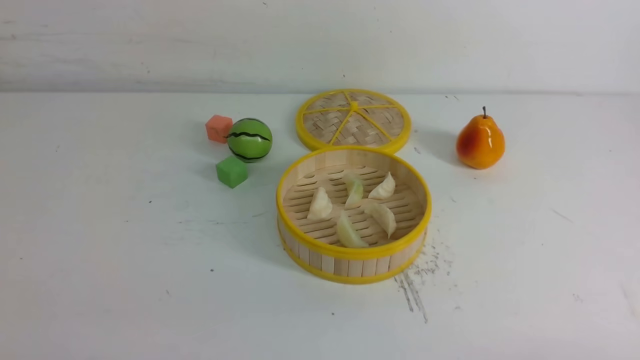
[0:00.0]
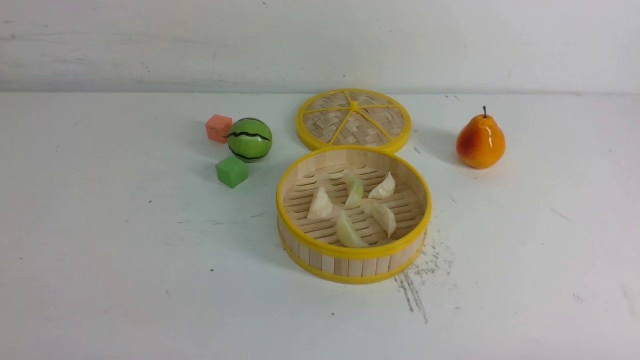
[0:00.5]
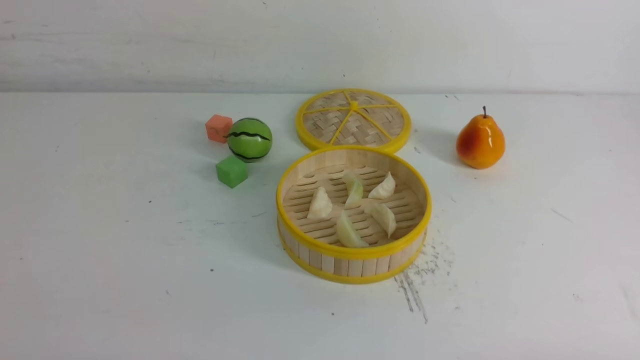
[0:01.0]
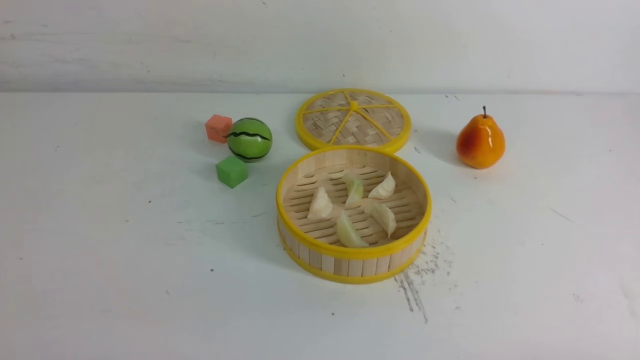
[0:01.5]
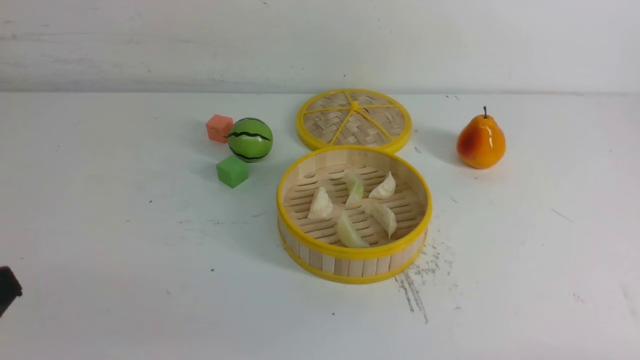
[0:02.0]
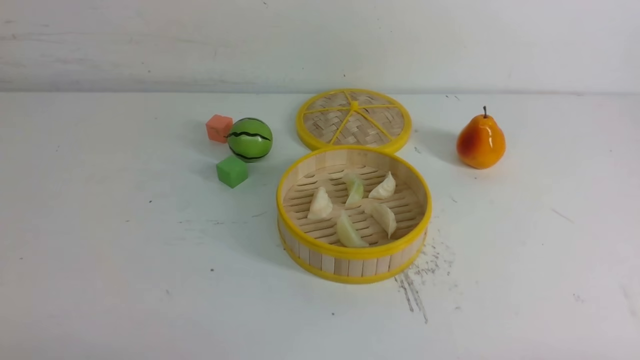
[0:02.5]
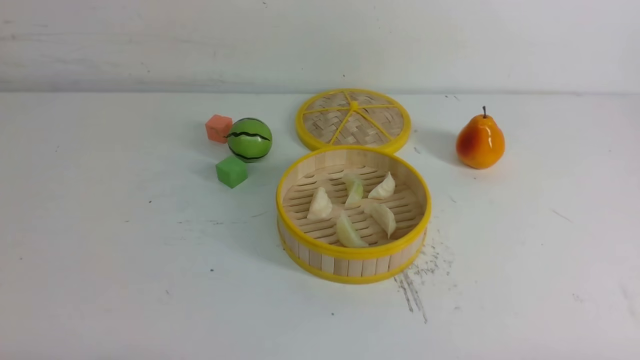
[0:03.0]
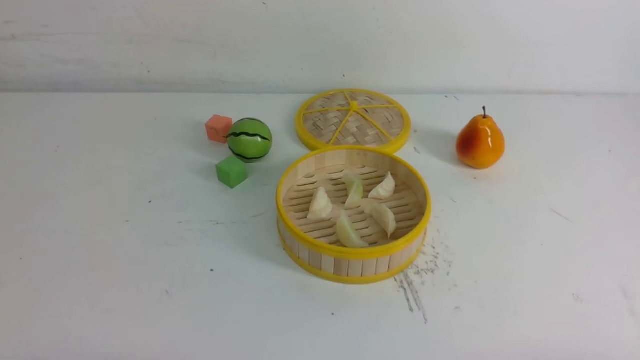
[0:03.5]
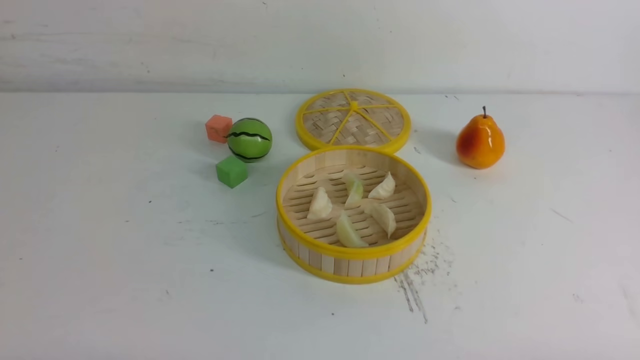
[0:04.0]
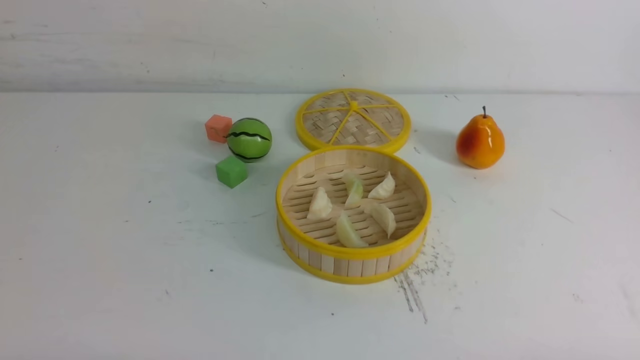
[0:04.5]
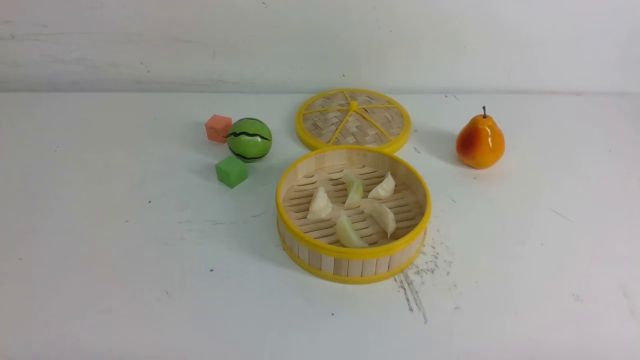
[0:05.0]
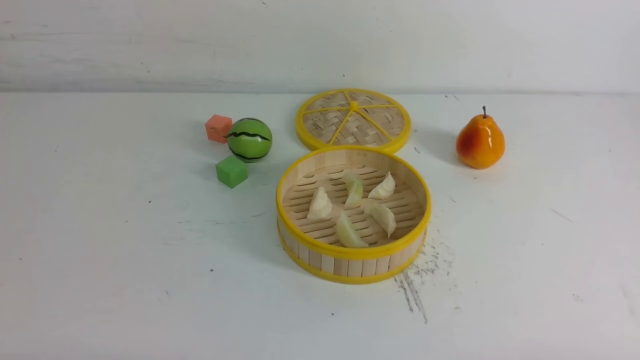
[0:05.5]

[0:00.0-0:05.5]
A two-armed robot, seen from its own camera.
Task of the whole recording: put the dumplings into the steamer on the white table.
0:03.5 to 0:05.5: The two grippers keep their place.

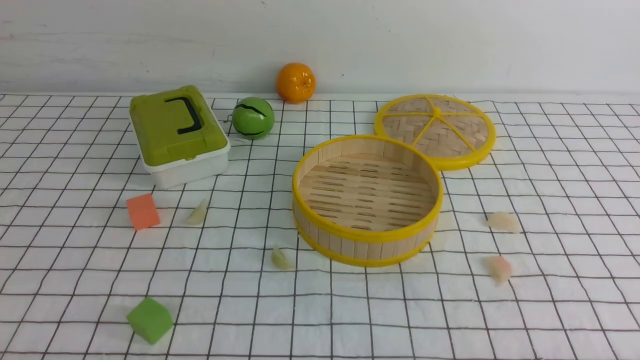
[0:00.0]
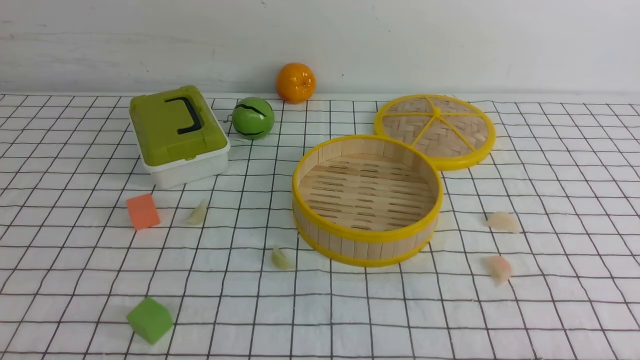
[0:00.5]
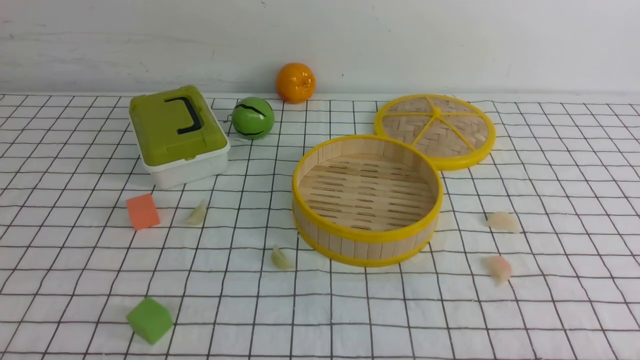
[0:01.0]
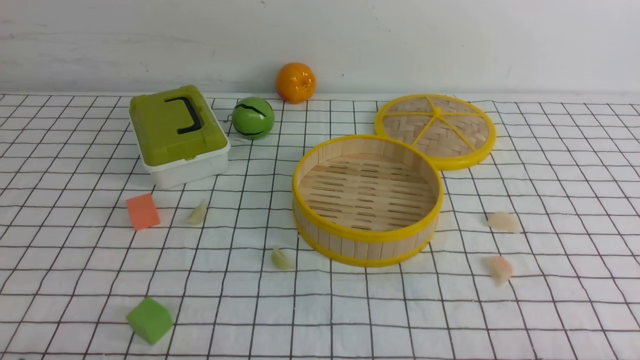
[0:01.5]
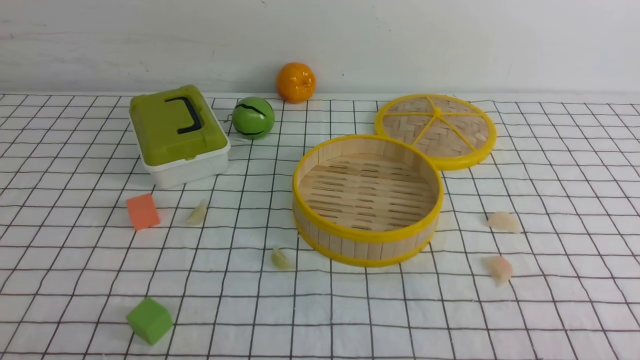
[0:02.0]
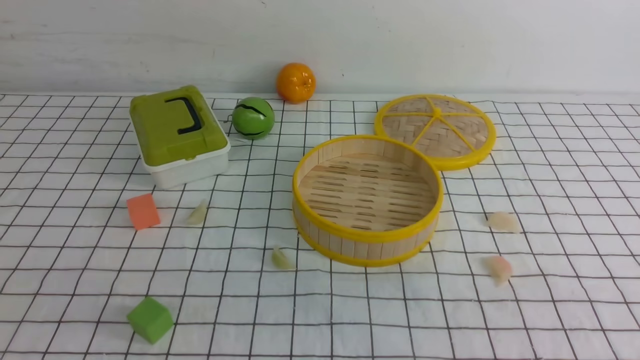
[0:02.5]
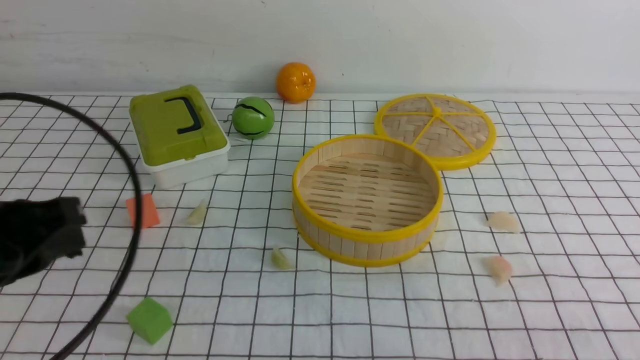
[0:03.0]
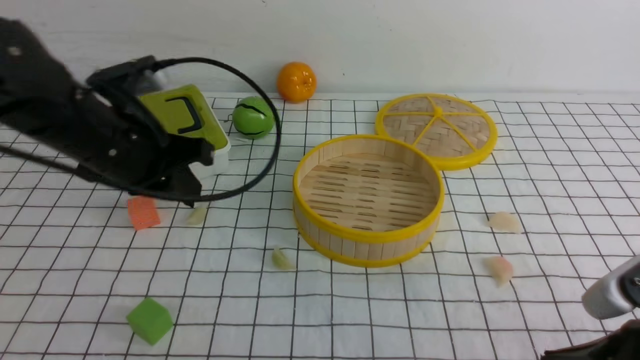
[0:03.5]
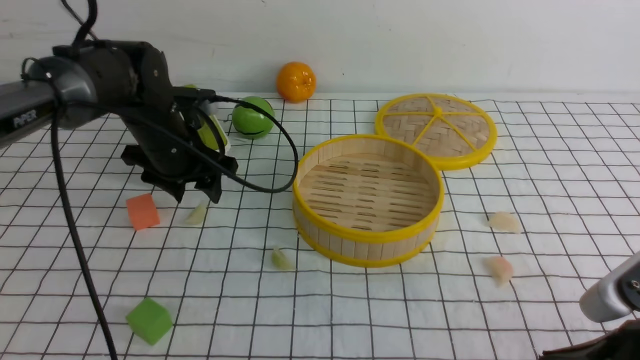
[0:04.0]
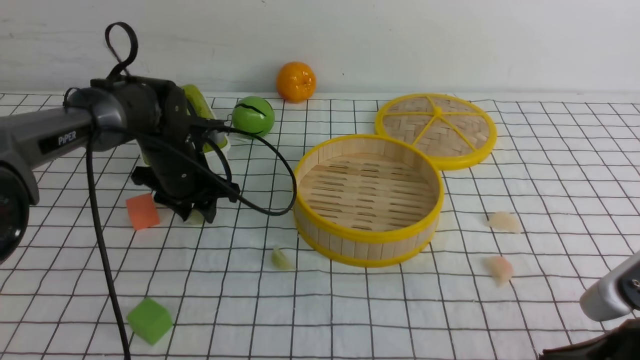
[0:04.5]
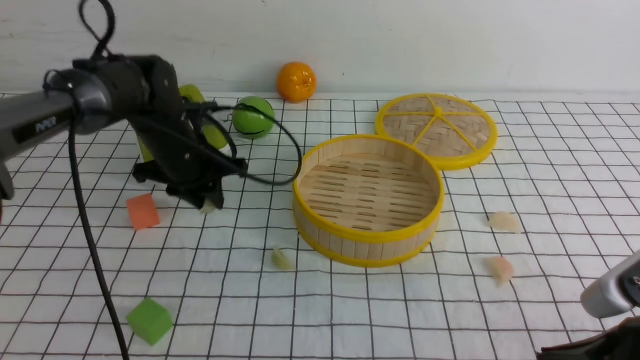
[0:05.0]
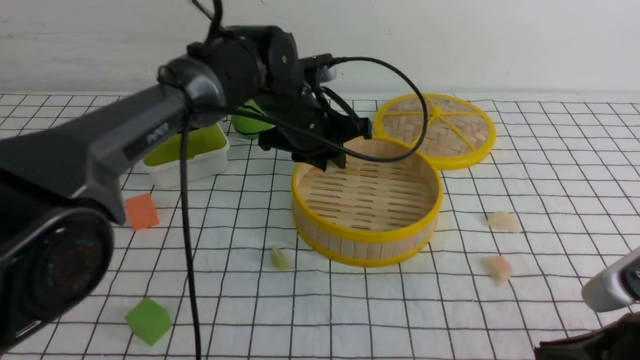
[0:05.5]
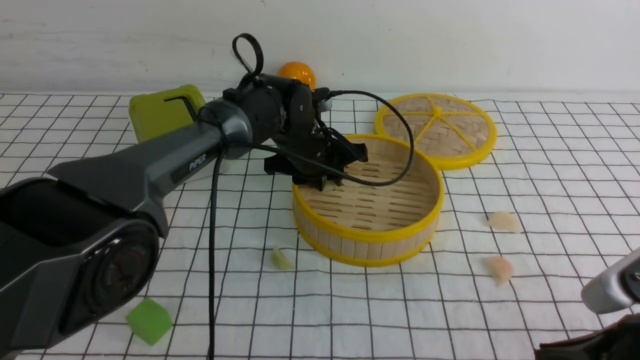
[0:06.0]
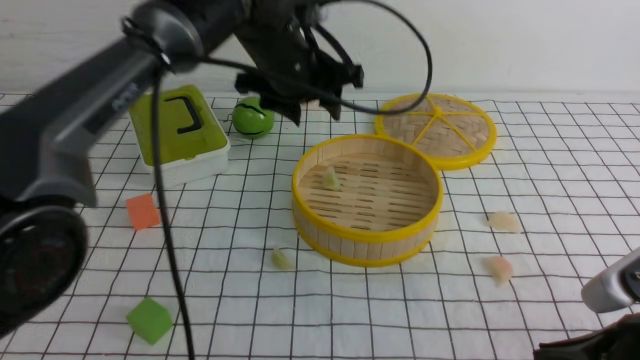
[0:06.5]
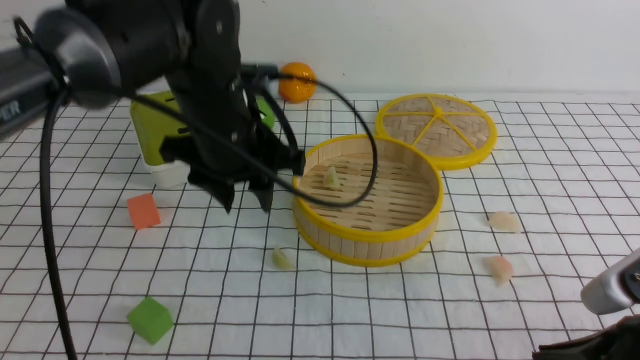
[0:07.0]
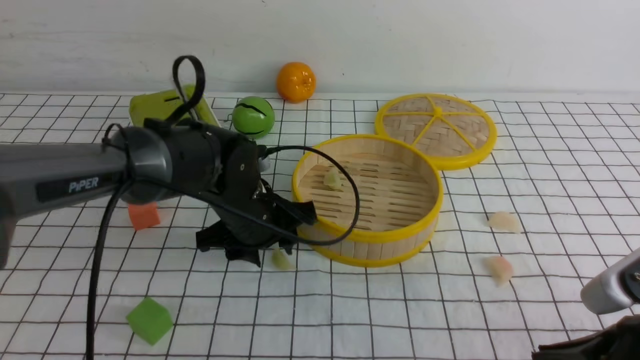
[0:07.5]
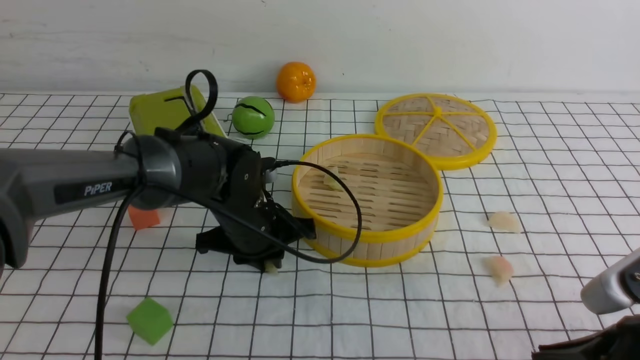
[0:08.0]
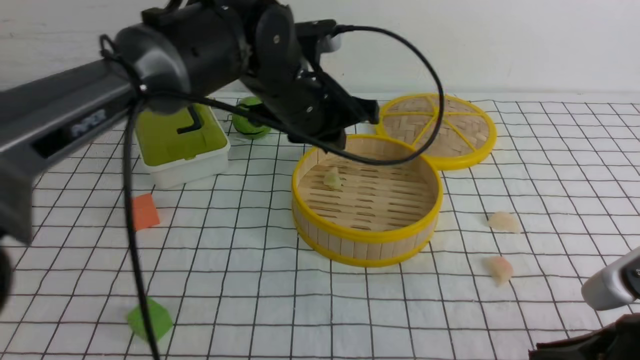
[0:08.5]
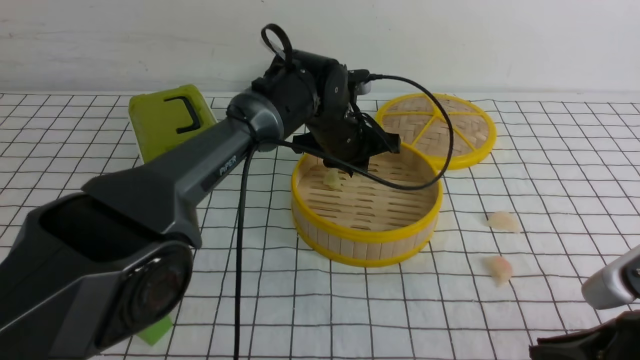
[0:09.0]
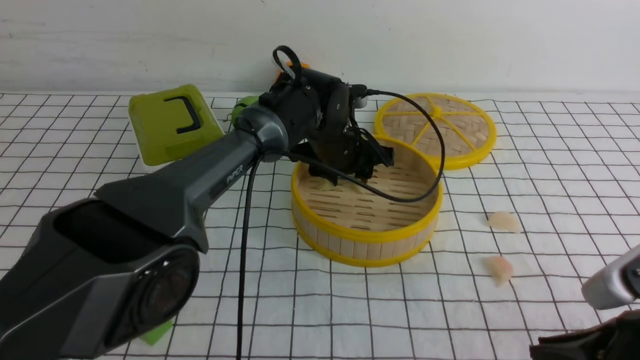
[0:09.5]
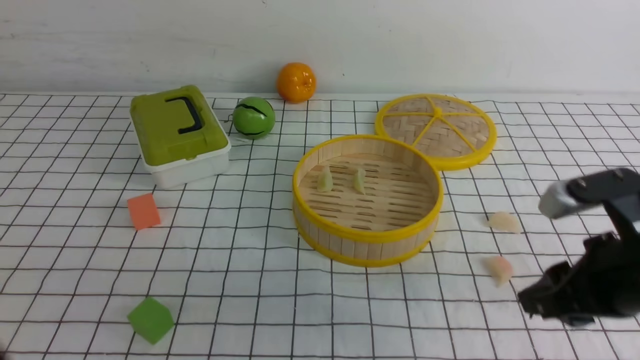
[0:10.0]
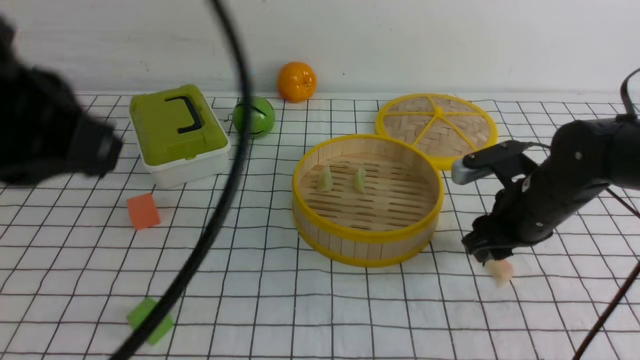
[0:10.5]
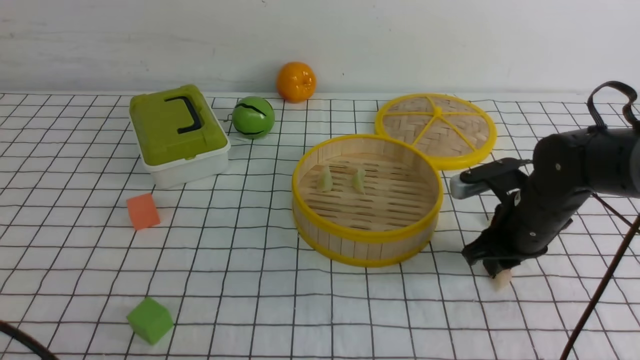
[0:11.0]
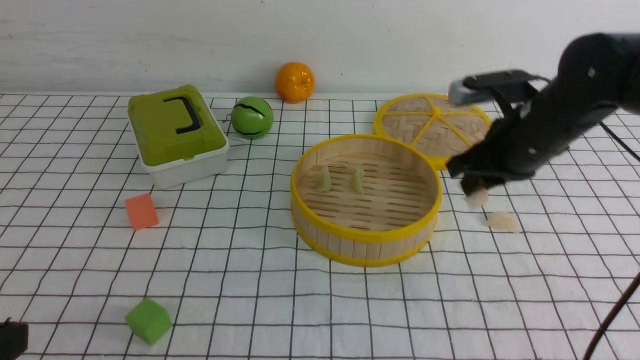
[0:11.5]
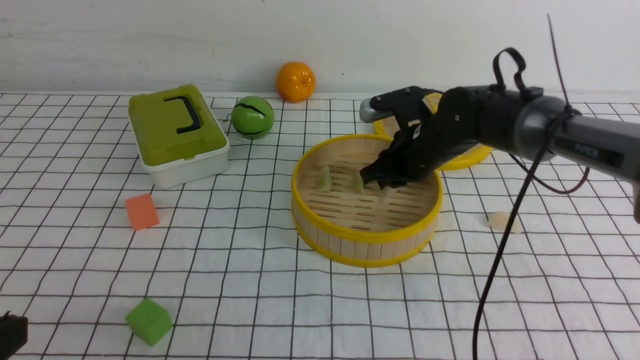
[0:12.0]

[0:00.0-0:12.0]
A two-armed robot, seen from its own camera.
Task of the whole recording: put the dumplings into the steamer on the table with the white tablecloth.
Step, 0:00.0 to 0:05.0: use the left arm to grab a dumpling.
Step, 0:05.5 to 0:06.5: use the left arm to put the dumpling into the steamer.
Step, 0:07.0 to 0:08.0: use the left arm to grab a dumpling.
Step, 0:08.5 to 0:09.5: use the left arm to put the dumpling into the steamer.
Step, 0:10.0 to 0:11.5: use the right arm to grab a dumpling.
0:02.0 to 0:04.0: The left gripper goes approximately 40 cm forward, and opens its fingers, while the right gripper moves forward and to the left, roughly 10 cm, and closes.
0:04.0 to 0:06.0: The left gripper travels to the right by about 15 cm.
0:06.0 to 0:08.0: The left gripper travels backward and to the left by roughly 10 cm, and moves roughly 15 cm upward and comes back.
0:08.0 to 0:10.0: The right gripper shifts some 10 cm forward, and opens its fingers; the left gripper swings up and down, about 30 cm each way, with 2 reversals, and opens, then closes once more.
0:10.0 to 0:12.0: The left gripper shifts some 35 cm backward, downward and to the left, and closes its fingers; the right gripper heads forward and to the left, covering approximately 25 cm.

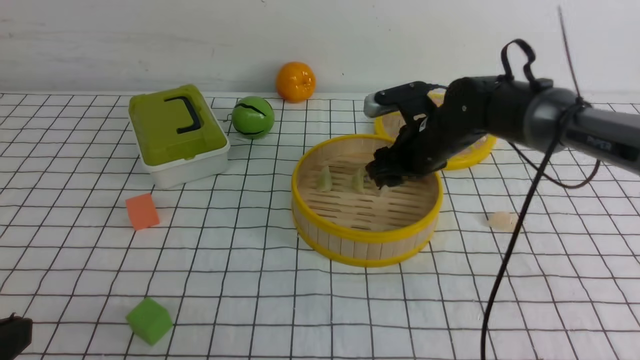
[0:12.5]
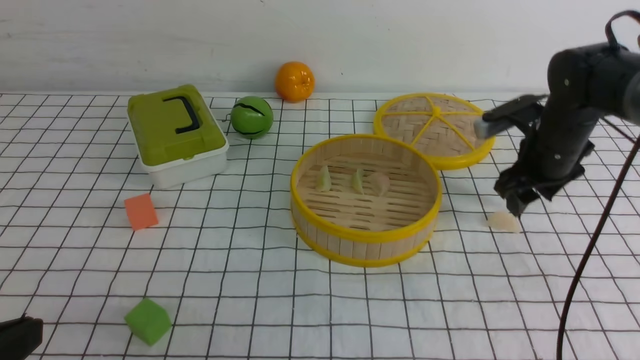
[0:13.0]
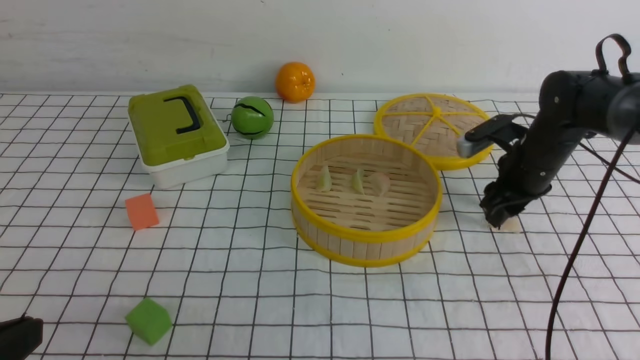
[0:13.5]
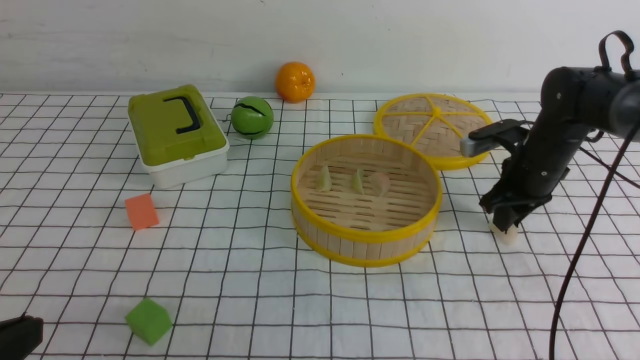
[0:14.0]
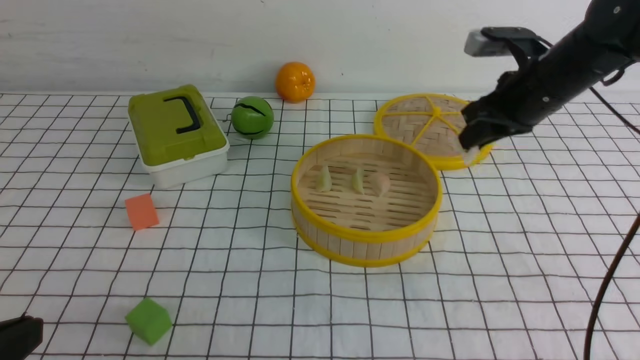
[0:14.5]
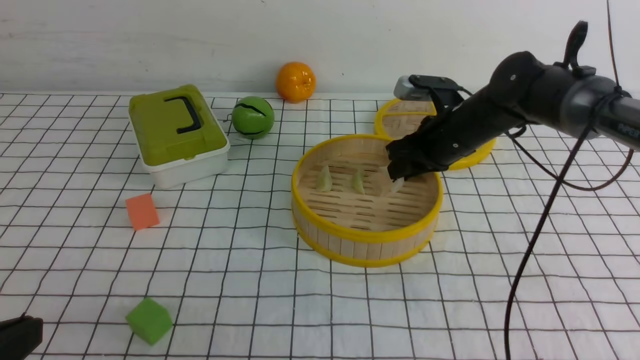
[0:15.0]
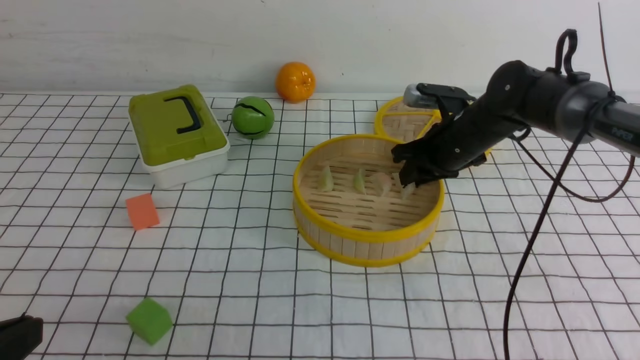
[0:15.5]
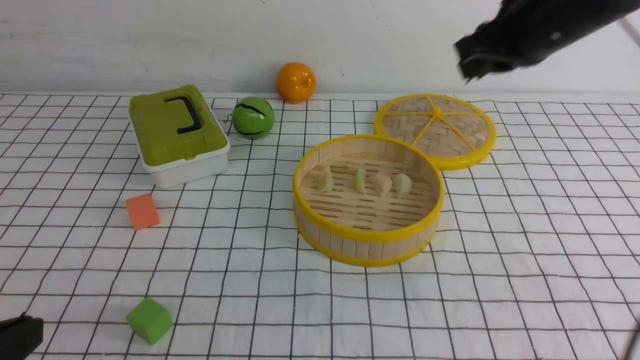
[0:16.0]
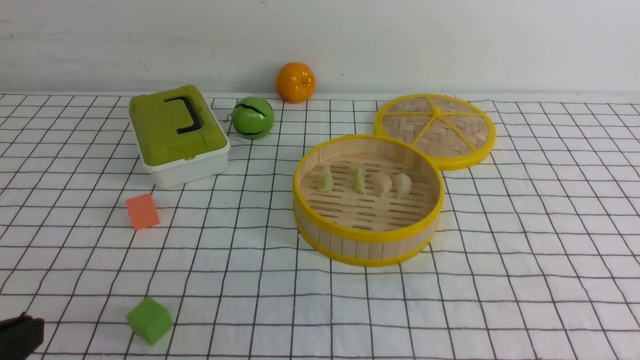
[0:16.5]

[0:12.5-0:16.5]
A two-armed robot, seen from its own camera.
Task of the whole recording: put the dumplings into the steamer on the table with the white tablecloth.
Step, 0:13.0 to 0:14.5: use the right arm to grab a dumpling.
Step, 0:15.0 to 0:15.5: use the right arm to put the dumpling into the steamer.
0:12.5 to 0:14.5: The right gripper goes roughly 10 cm to the right, and closes.
0:14.5 to 0:16.5: The right gripper shifts some 30 cm backward and upward, and closes.
